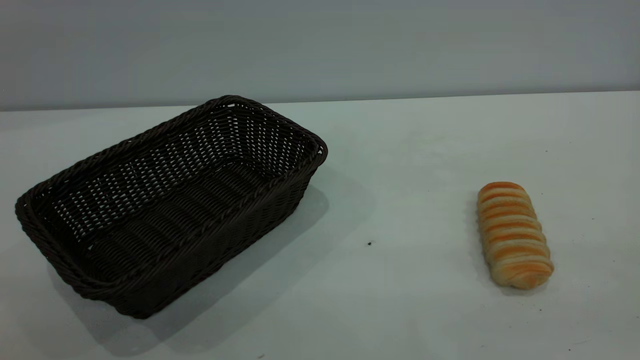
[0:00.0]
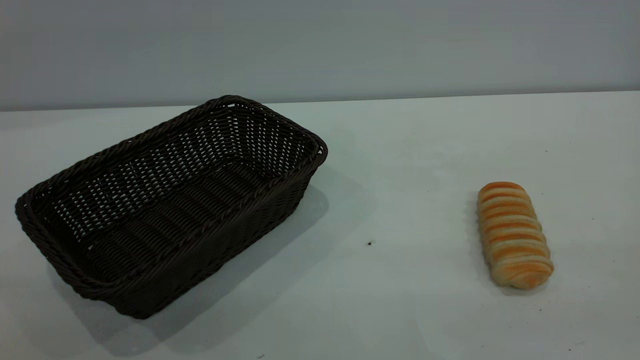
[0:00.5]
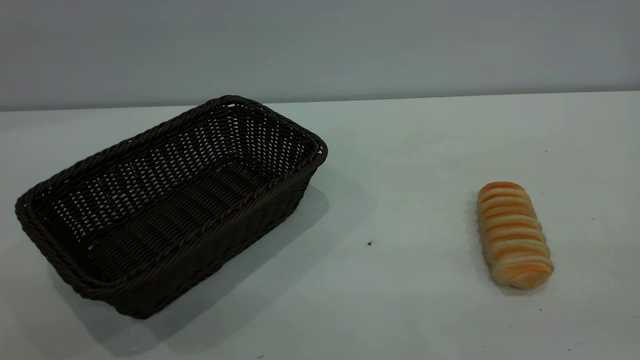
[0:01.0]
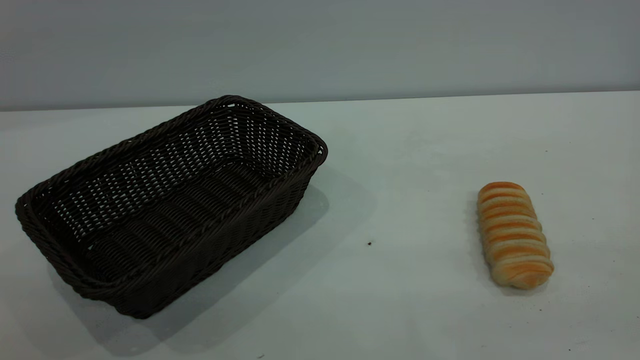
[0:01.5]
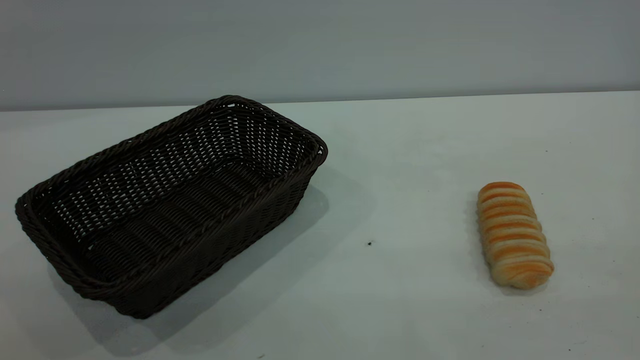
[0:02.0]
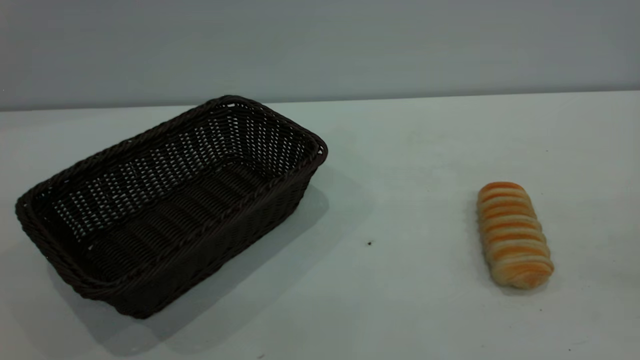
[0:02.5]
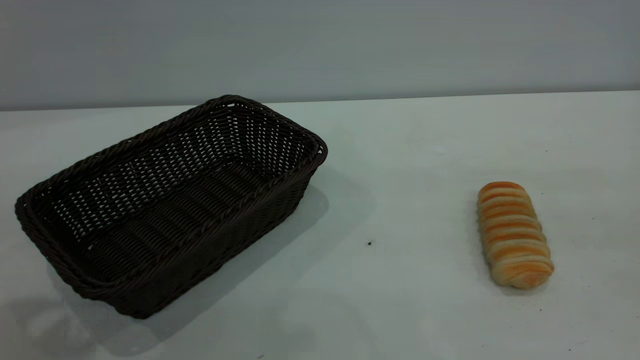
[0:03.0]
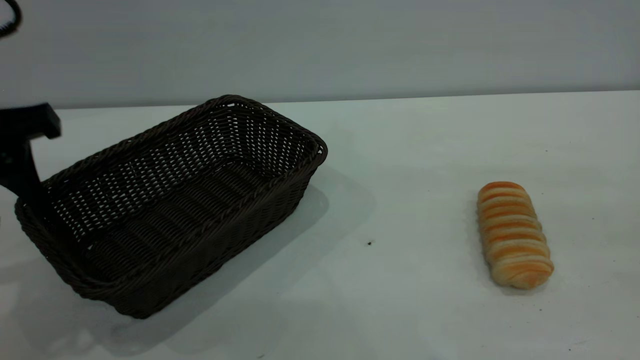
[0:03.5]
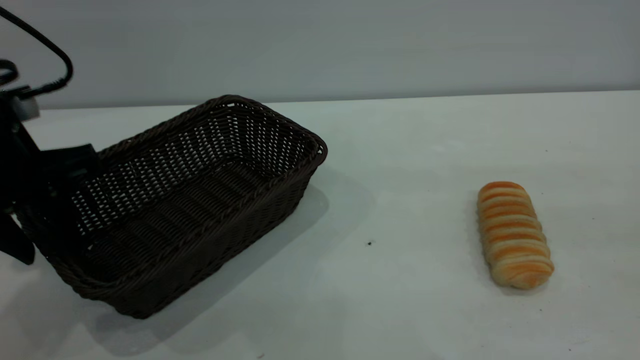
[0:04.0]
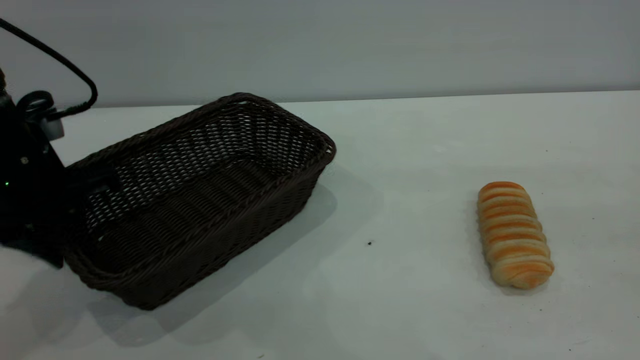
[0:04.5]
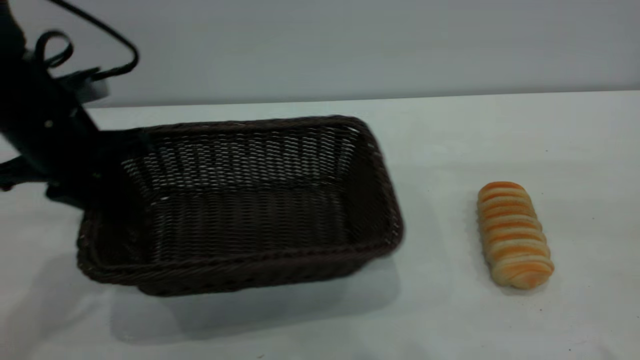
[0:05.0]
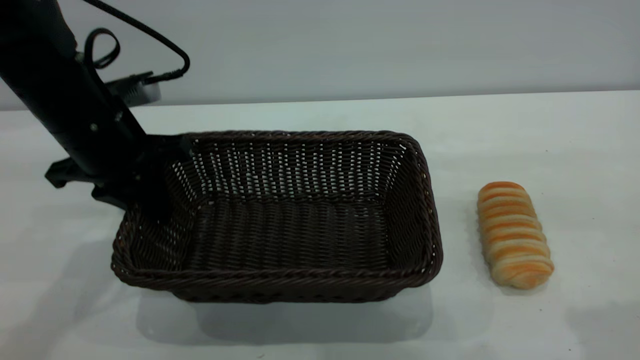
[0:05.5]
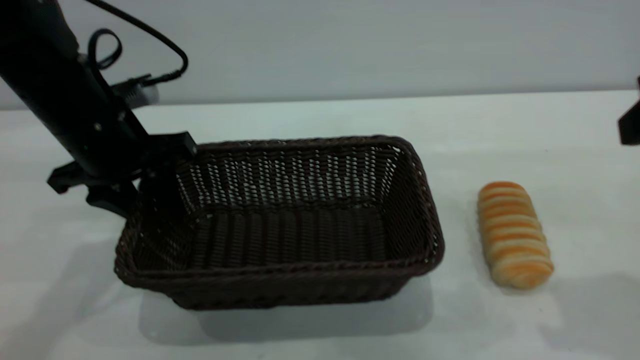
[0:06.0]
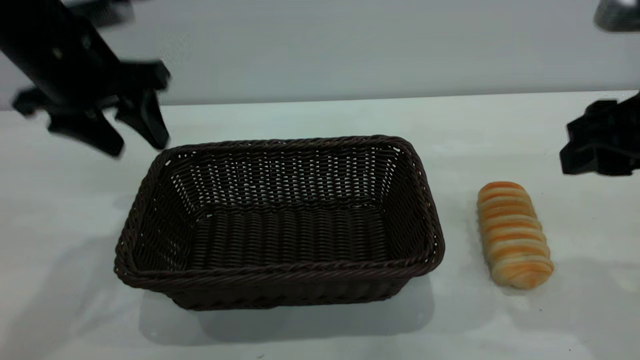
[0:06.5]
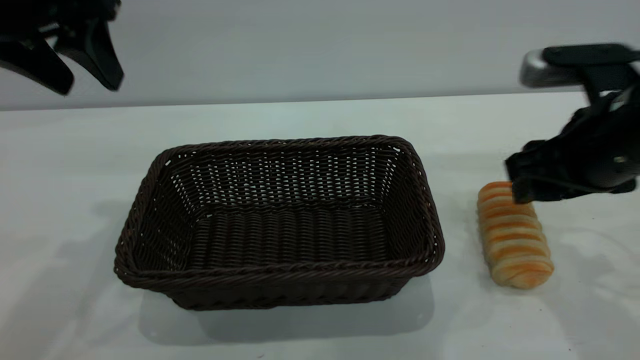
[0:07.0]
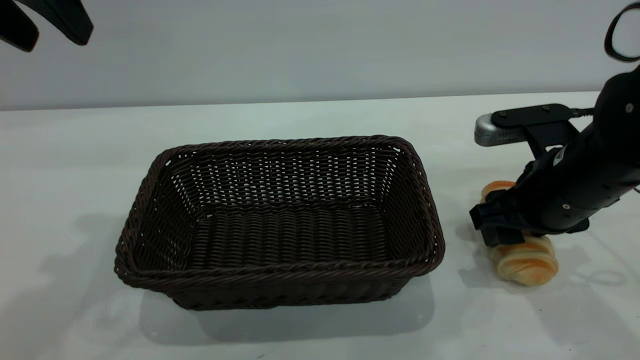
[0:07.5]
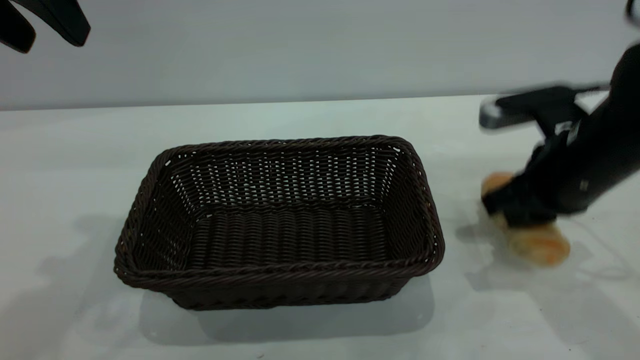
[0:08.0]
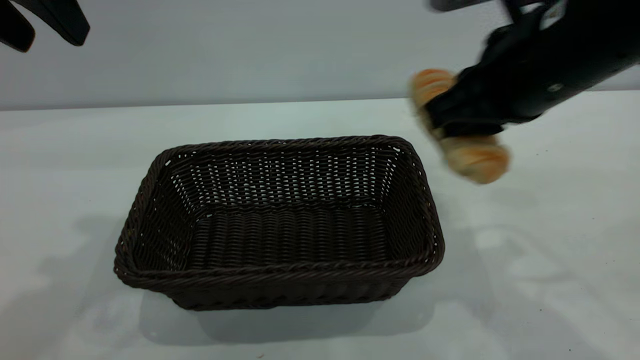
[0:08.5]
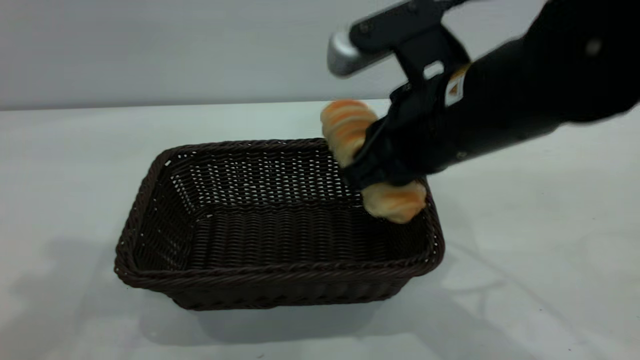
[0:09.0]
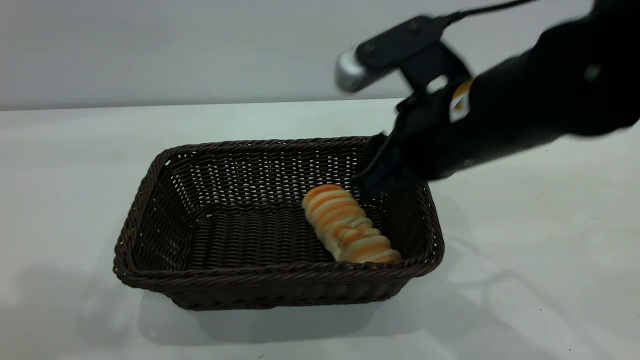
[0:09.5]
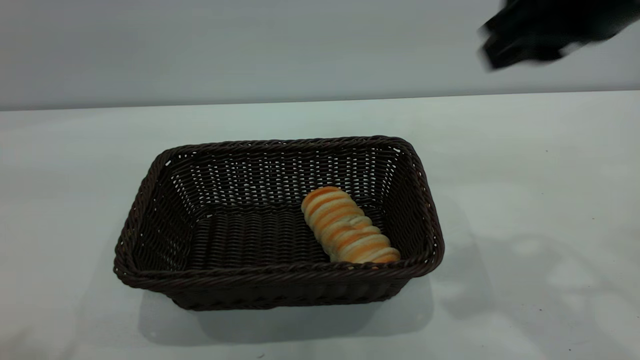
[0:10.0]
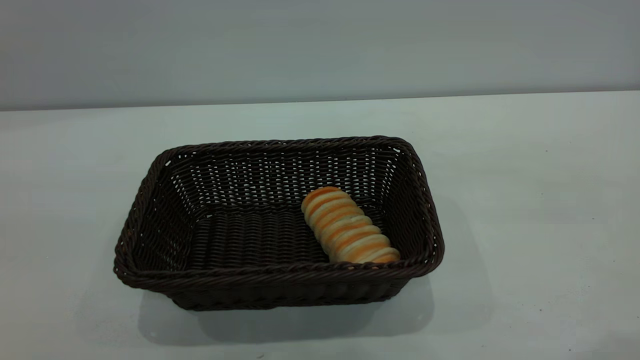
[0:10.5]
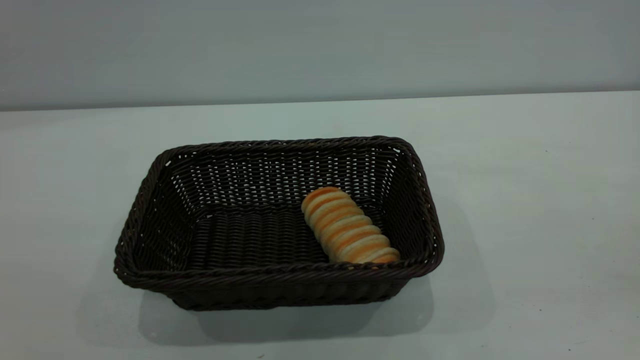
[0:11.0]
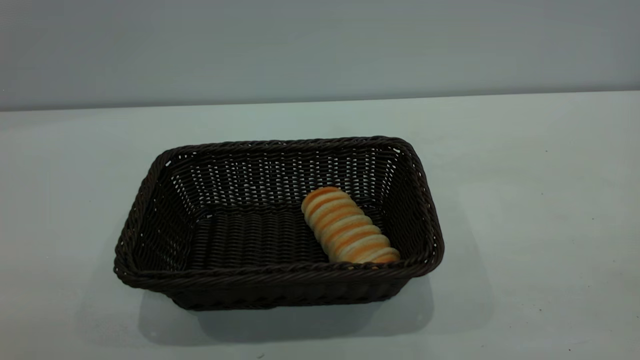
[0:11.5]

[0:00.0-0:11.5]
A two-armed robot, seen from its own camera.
Task of the whole recording: One hand grasps the black basket and places it in the middle of the table, while the other hand picks up the long bread and puts it into the black basket.
Step, 0.0 to 6.5 s: Move the basket to the center of view.
Step, 8.5 to 9.5 s: place the bread into the basket.
2.0 to 4.0 s: The left gripper heads forward and downward, covering approximately 35 cm.
4.0 to 6.0 s: The left gripper goes about 10 cm forward and to the right, and closes, then opens again. The right gripper travels forward and downward by roughly 10 cm.
6.0 to 7.5 s: The right gripper goes some 20 cm downward and forward. Meanwhile the left gripper travels upward by about 20 cm.
7.5 to 9.5 s: The left gripper shifts some 10 cm backward and upward, while the right gripper shifts some 15 cm to the left and upward, and closes and opens again.
9.5 to 11.5 s: The right gripper shifts roughly 35 cm backward, to the right and upward, while the left gripper shifts some 25 cm backward.

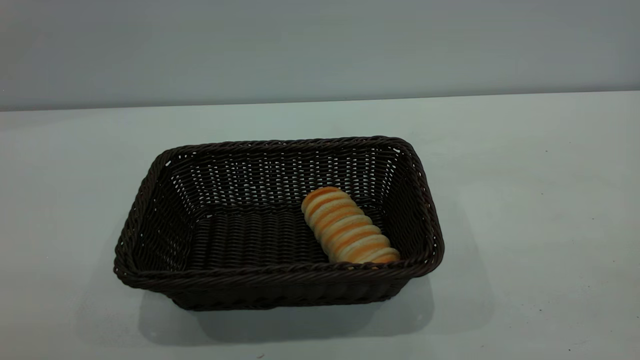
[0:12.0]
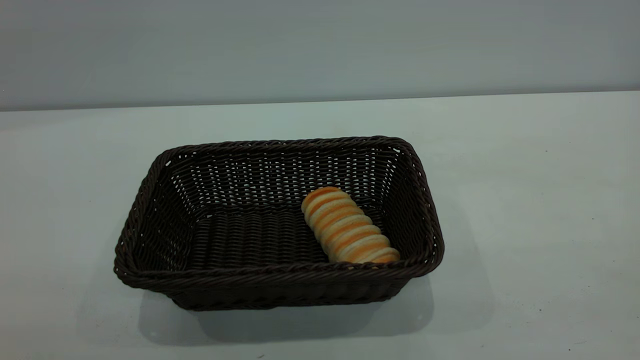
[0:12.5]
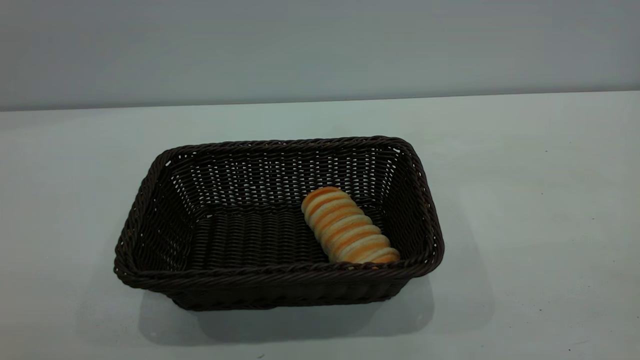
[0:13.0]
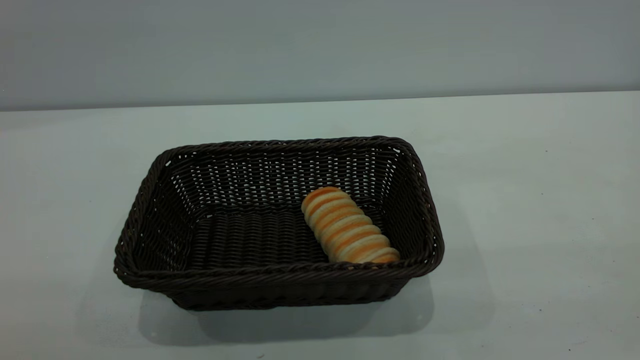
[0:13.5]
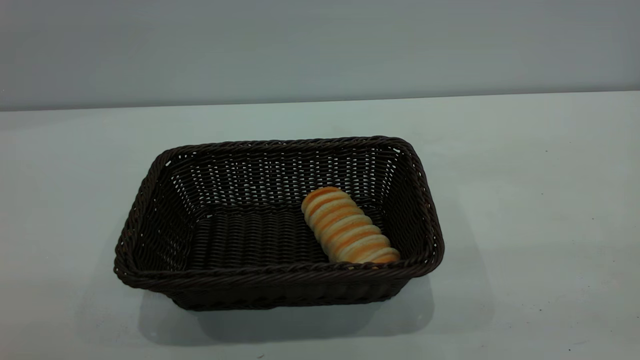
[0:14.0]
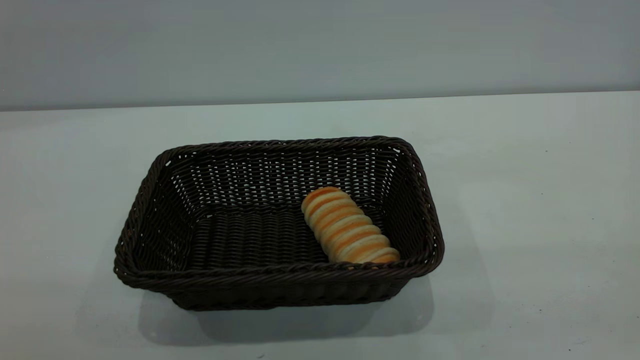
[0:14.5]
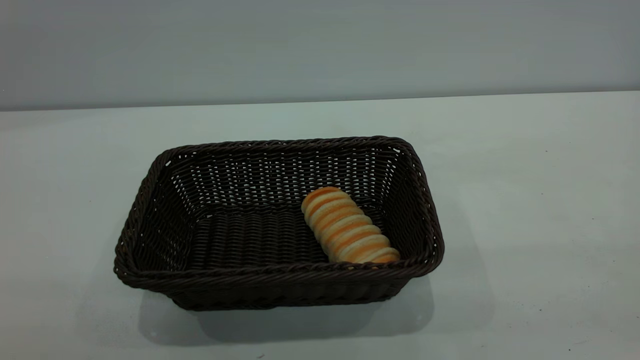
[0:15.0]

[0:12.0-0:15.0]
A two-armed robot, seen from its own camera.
Task of the whole recording: One hand grasps the black basket and places it in the middle of the table, while the other hand picks up the long bread and puts it into the black basket.
13.5 to 15.0 s: Both grippers stay put.

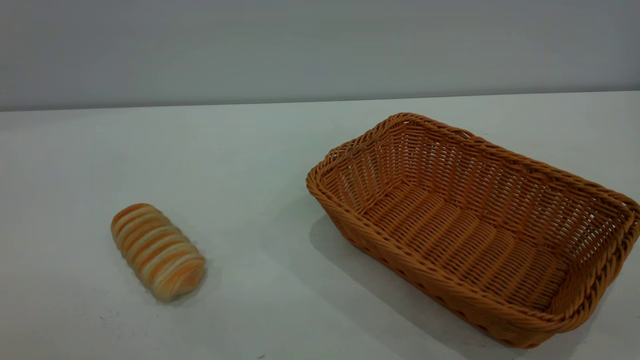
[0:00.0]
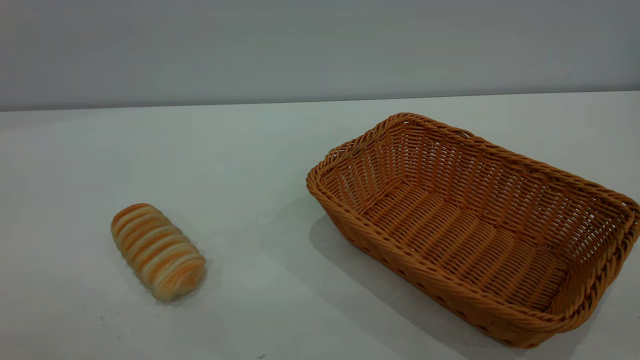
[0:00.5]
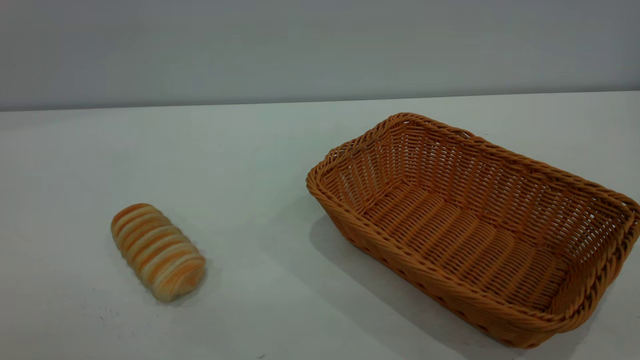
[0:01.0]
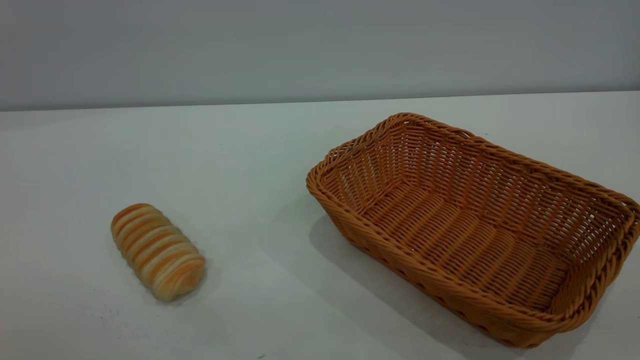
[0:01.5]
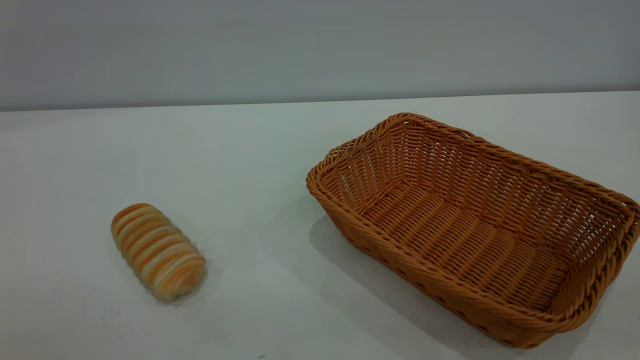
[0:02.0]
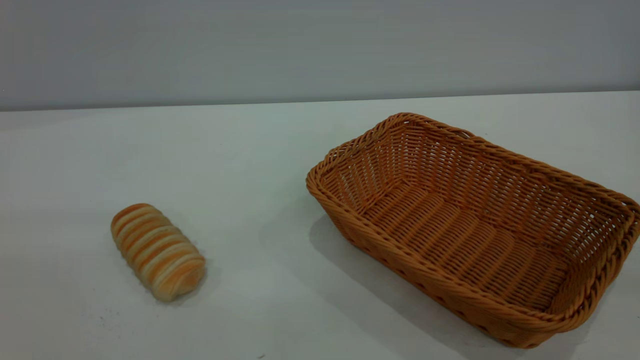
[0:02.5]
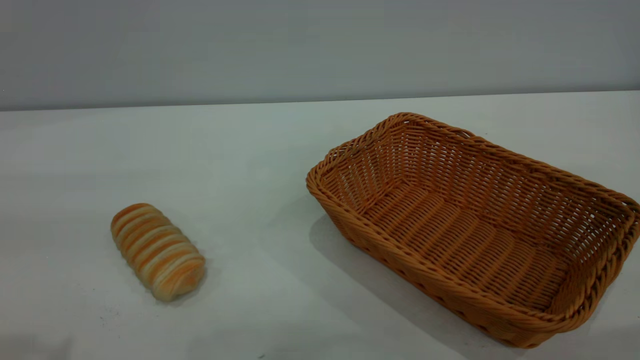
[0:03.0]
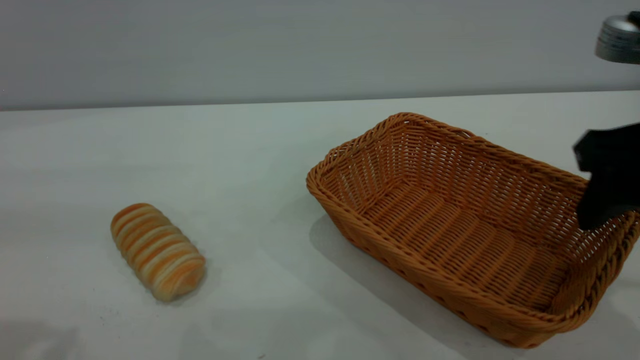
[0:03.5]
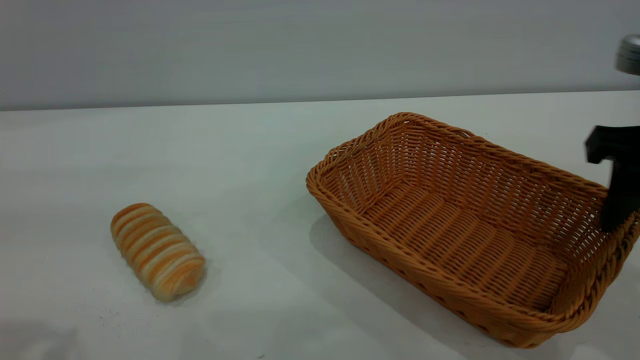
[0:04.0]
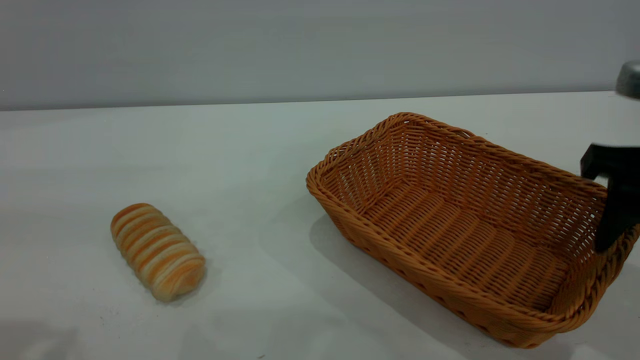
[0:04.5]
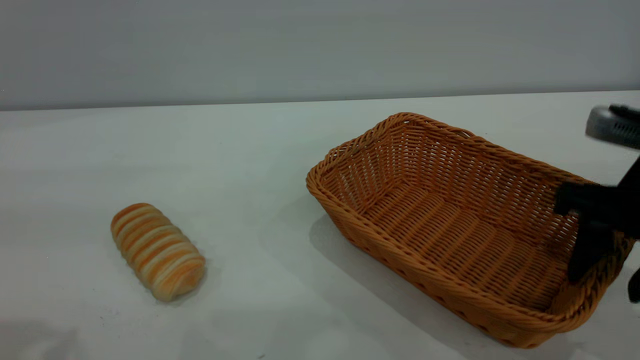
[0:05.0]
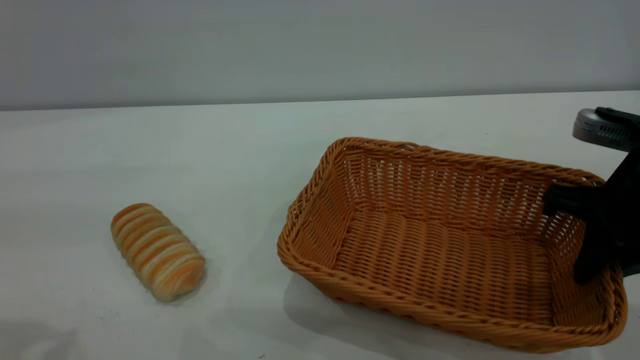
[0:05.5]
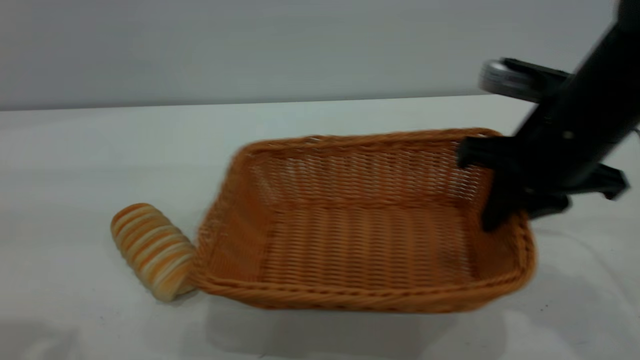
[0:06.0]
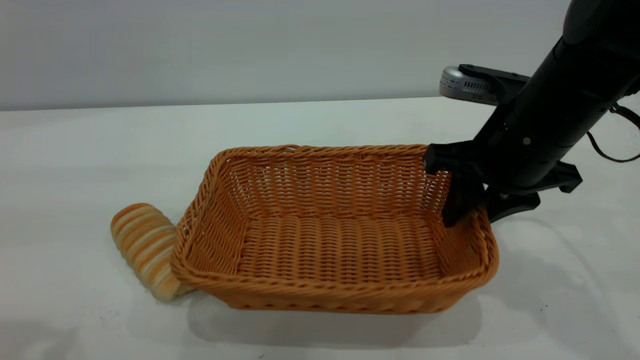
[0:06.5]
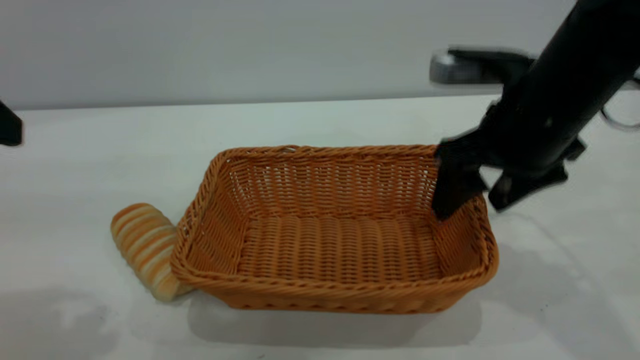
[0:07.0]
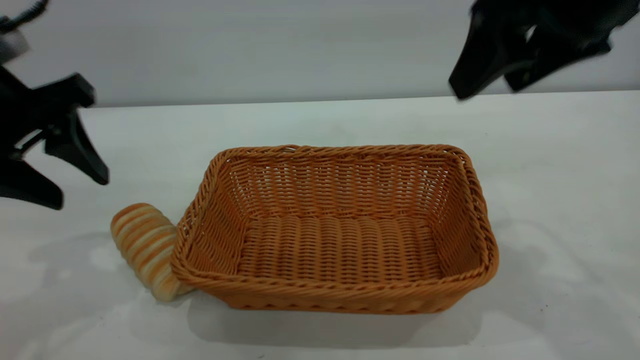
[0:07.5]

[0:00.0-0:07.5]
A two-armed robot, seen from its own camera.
Task of the whole recording: One hand grasps the yellow basket and places it in the middle of the table, while the other hand picks up the long bread and puts it into the yellow basket.
Step, 0.0 to 7.0 s: Move the basket to the center of view.
2.0 to 4.0 s: The right gripper is displaced forward and downward by roughly 30 cm.
4.0 to 5.5 s: The right gripper goes about 5 cm downward, and closes its fingers.
5.5 to 7.5 s: The left gripper travels forward and downward by some 15 cm. The right gripper is displaced upward and to the left by about 20 cm, and opens up.
